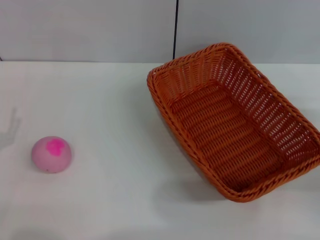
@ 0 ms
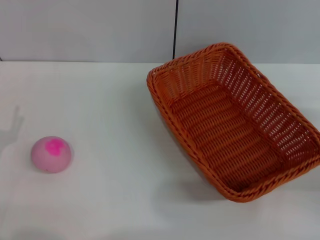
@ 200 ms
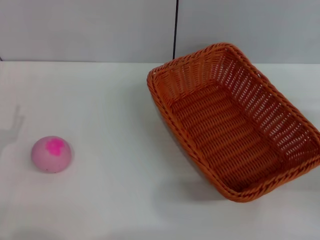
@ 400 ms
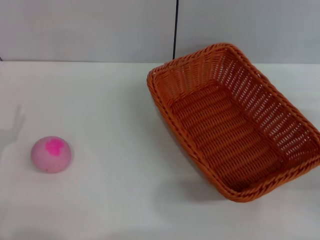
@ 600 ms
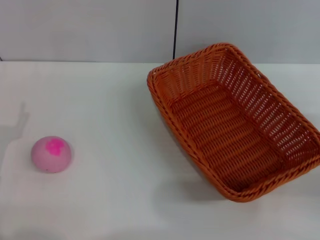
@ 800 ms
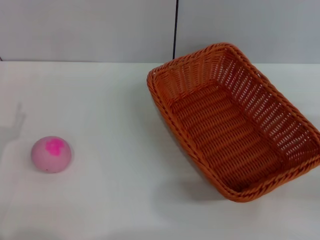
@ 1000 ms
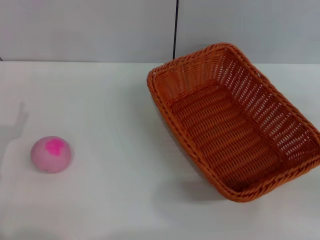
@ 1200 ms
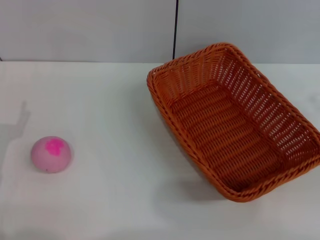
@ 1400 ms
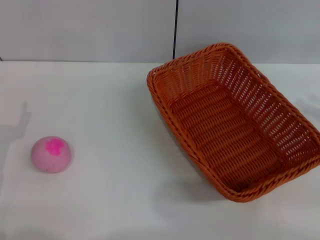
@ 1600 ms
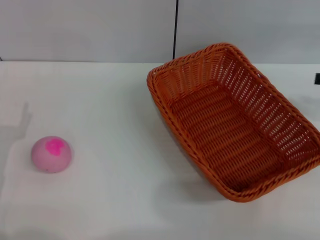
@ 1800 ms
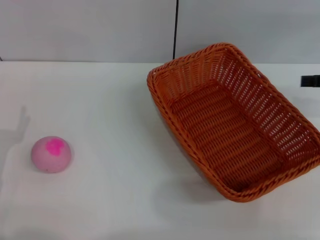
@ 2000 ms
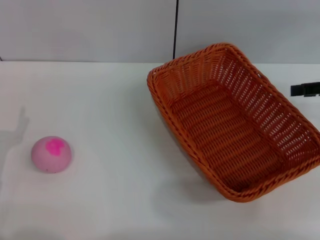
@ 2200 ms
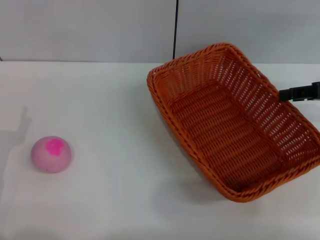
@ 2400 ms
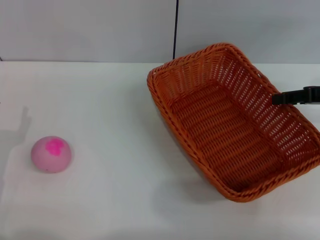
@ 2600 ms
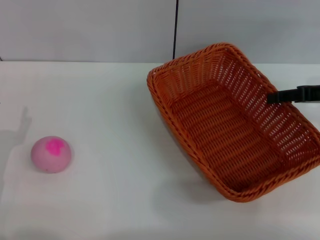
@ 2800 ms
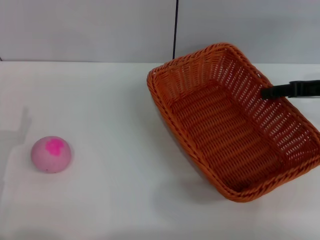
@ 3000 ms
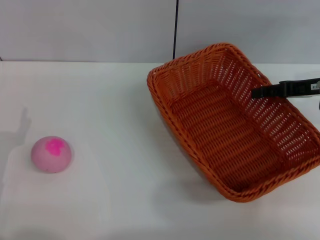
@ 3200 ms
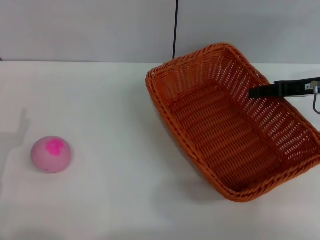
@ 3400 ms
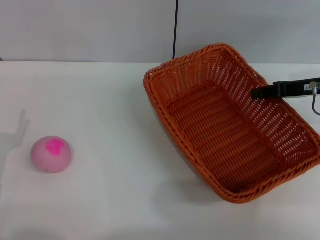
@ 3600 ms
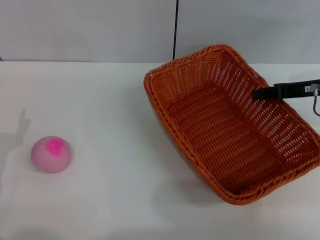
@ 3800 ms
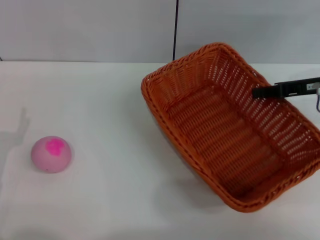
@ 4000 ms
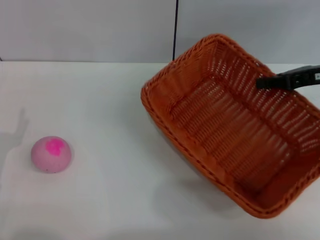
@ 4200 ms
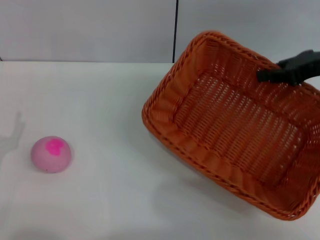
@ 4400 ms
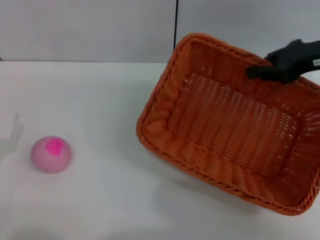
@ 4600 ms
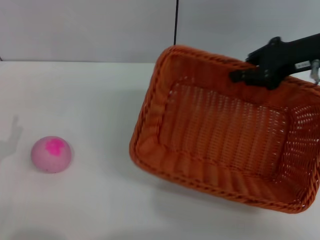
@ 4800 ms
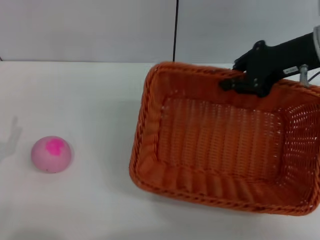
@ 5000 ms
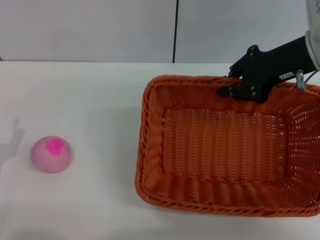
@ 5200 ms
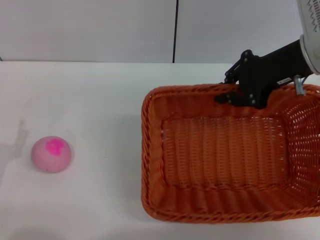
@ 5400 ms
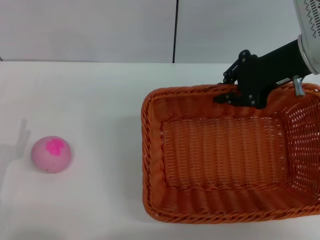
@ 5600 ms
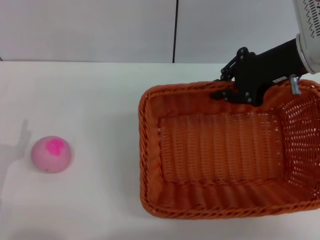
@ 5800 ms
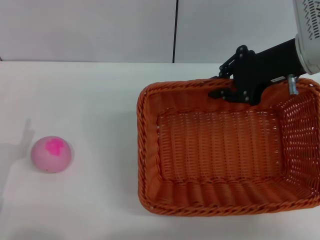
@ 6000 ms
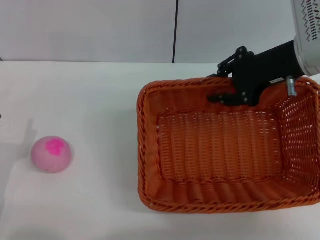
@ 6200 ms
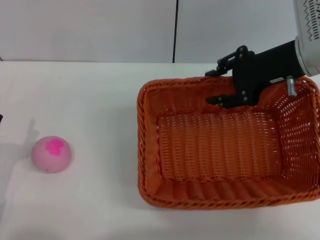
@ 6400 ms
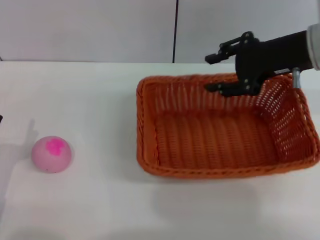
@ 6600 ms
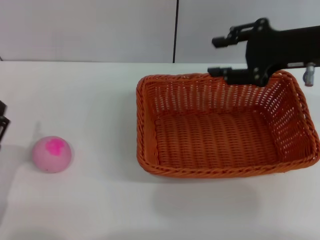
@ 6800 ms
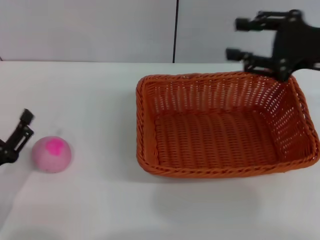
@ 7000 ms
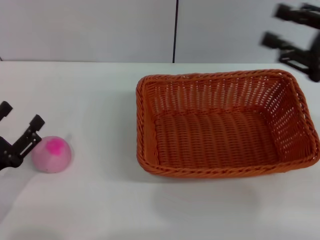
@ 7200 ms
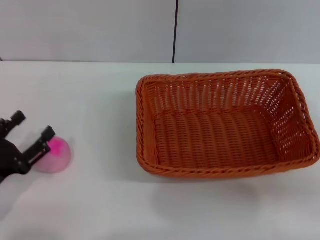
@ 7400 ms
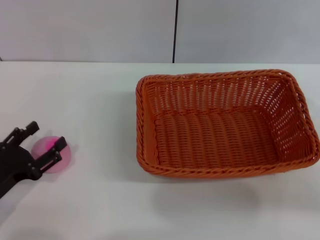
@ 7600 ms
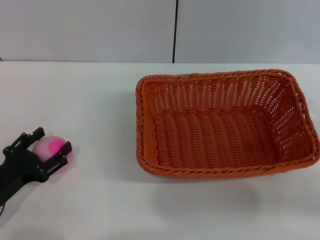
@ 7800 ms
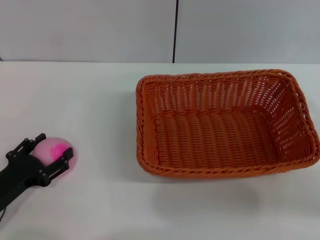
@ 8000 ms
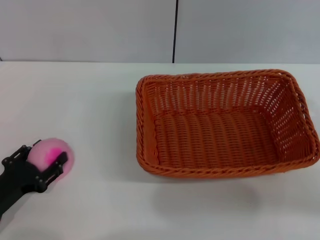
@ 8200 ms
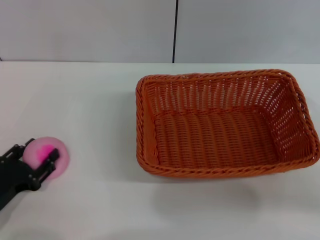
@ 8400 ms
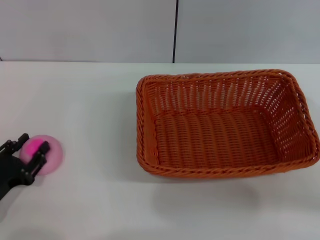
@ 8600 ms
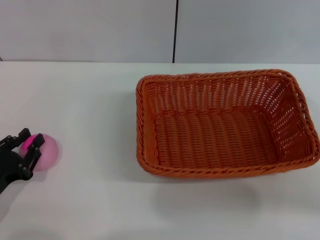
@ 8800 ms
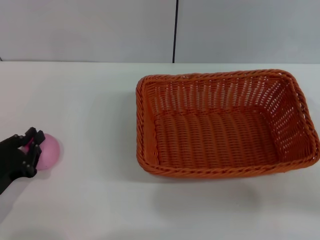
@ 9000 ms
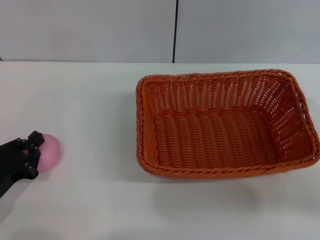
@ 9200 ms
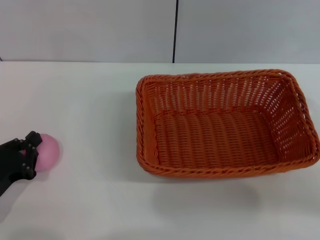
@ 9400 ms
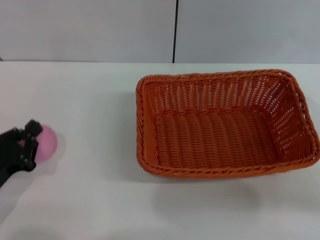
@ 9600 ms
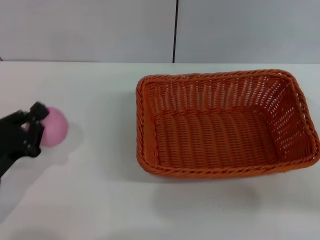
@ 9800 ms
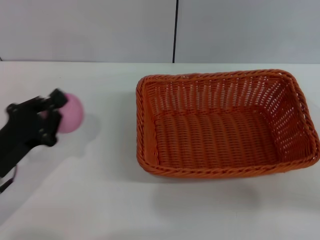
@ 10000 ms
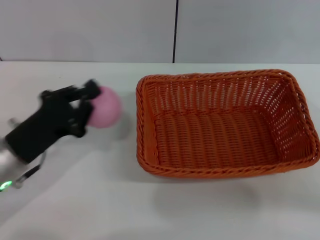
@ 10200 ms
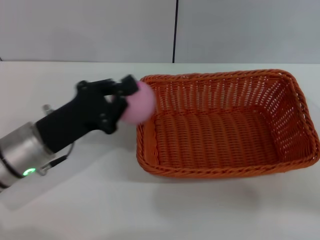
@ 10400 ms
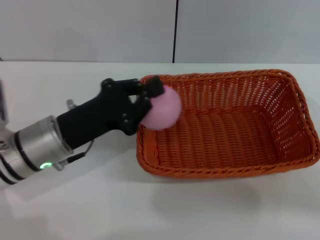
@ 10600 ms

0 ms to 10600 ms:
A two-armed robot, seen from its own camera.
Step, 0 ms to 4200 ms: Pick up the light basket with the right gripper.
Step, 4400 ms to 6800 ms: Place the light basket in the center of view with the right gripper.
Step, 7000 ms to 9800 ms: Pick up the peach with the left gripper.
1600 ms to 3000 ms: The right gripper heads to the left and forward, covering roughly 10 cm.
3000 ms to 4600 ms: The right gripper goes some 5 cm upward, and closes.
4600 ms to 6000 ms: The right gripper moves to the left, approximately 5 cm.
6000 ms to 7600 ms: The right gripper shifts approximately 20 cm backward, to the right and downward, and opens up.
7600 ms to 9000 ms: The left gripper closes its fingers.
9000 ms to 10600 ms: The left gripper is displaced to the right, forward and upward by roughly 15 cm.

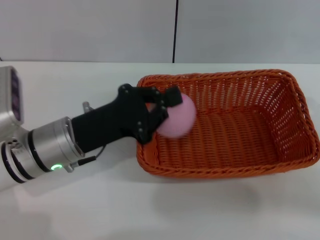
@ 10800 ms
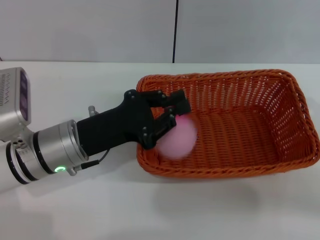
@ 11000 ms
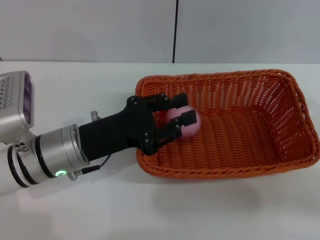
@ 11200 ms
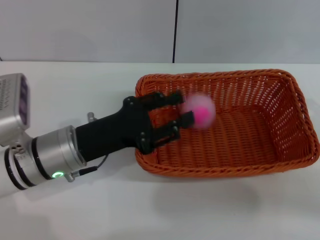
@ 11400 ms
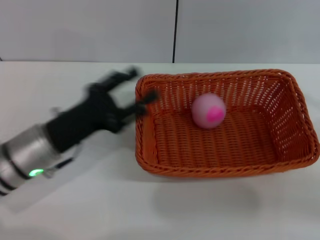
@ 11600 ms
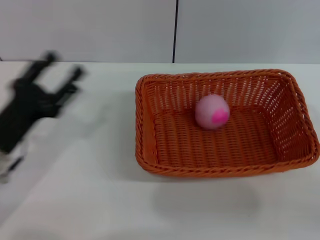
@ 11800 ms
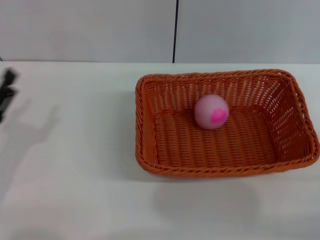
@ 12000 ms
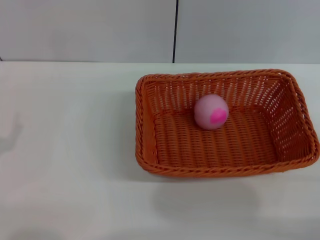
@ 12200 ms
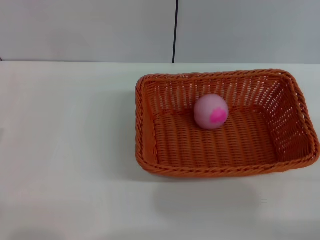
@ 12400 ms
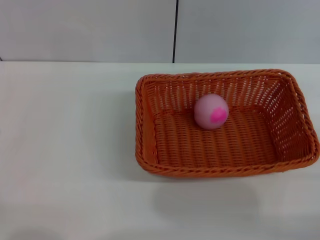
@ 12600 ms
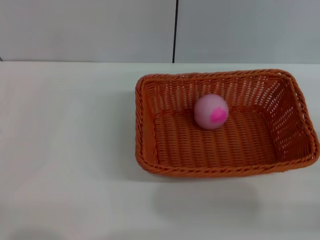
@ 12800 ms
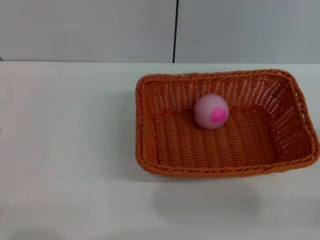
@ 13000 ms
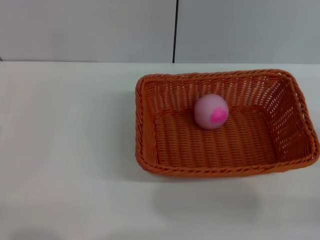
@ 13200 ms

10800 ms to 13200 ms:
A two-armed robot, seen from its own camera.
Step, 10800 ms to 11600 ms: Place the peach into the basket with the left gripper.
10800 ms to 12000 ms: The right gripper changes place by some 5 cm, while the left gripper heads to the left and backward, covering roughly 15 cm, and opens its fingers.
